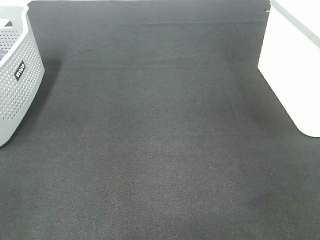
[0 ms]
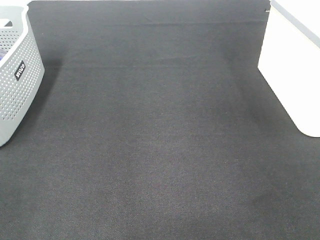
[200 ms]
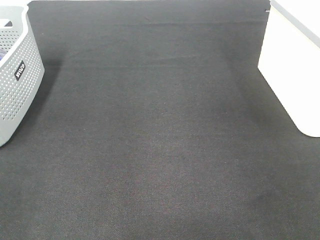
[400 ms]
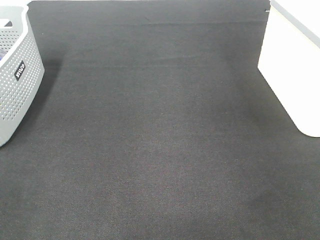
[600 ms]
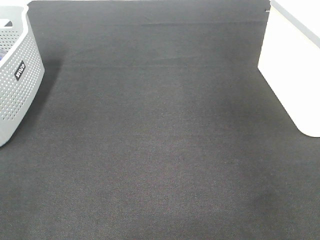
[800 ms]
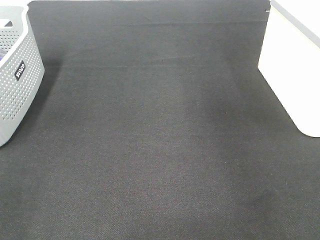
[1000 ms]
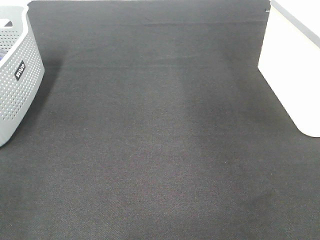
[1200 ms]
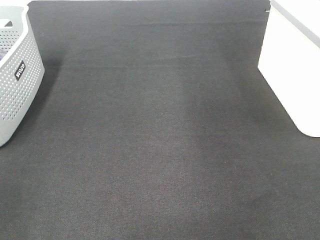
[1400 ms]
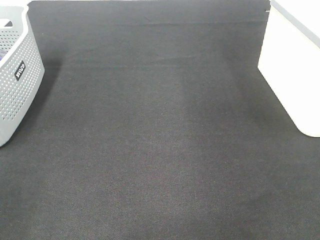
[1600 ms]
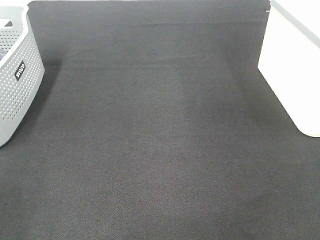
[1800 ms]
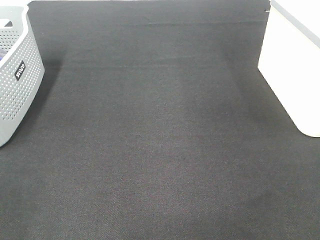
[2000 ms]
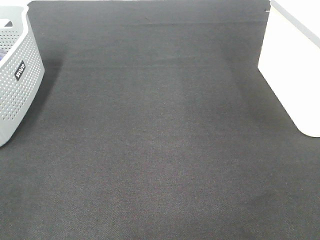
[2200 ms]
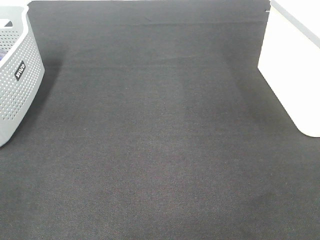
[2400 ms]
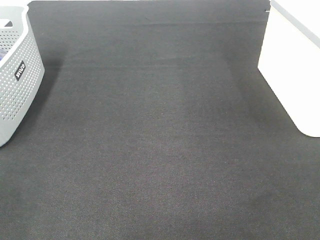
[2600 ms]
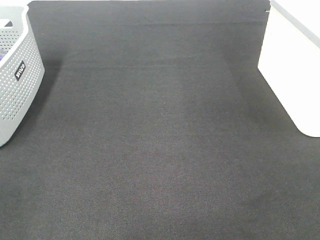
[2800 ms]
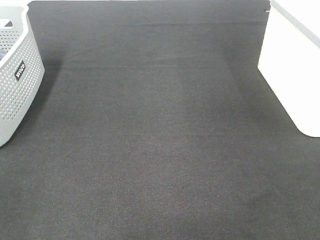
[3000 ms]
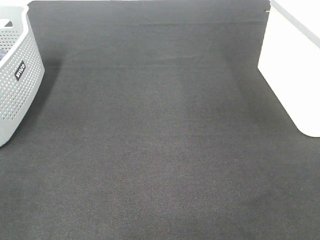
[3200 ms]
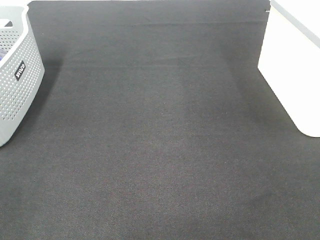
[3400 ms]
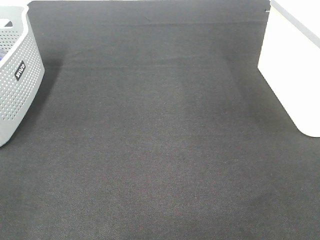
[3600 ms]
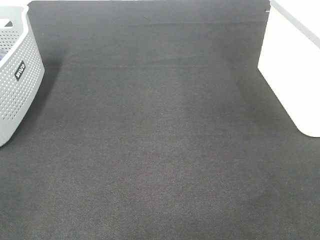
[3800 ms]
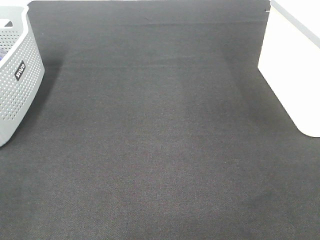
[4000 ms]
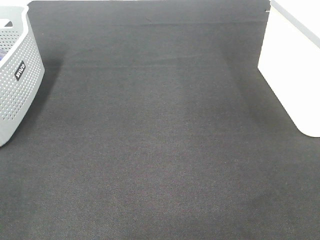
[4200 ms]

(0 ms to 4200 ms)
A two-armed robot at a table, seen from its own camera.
2800 ms - 4200 ms: Both grippers stay put.

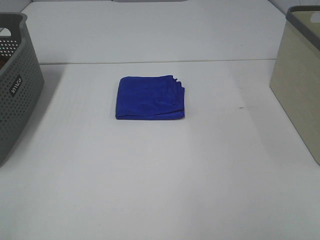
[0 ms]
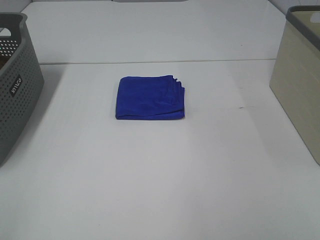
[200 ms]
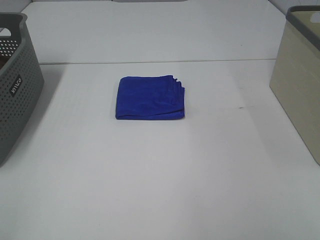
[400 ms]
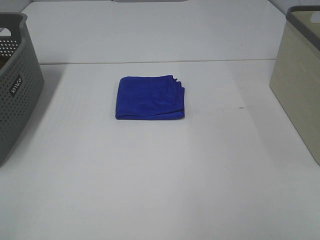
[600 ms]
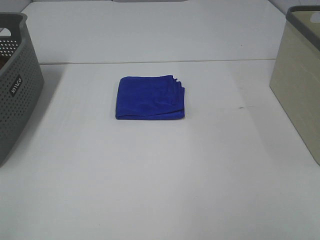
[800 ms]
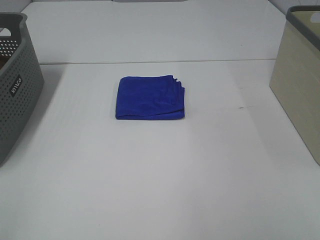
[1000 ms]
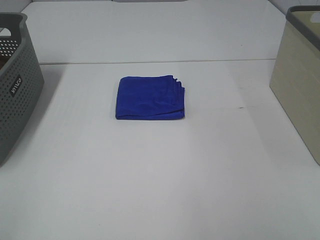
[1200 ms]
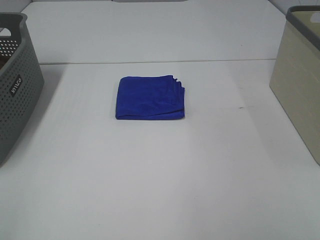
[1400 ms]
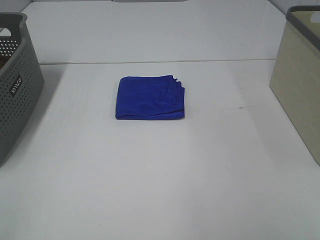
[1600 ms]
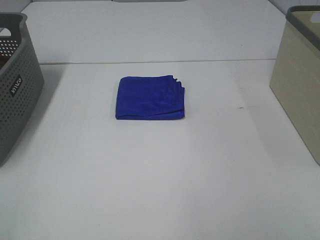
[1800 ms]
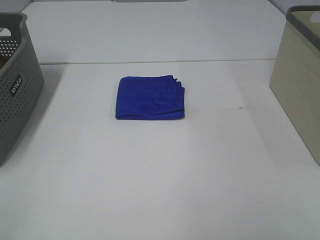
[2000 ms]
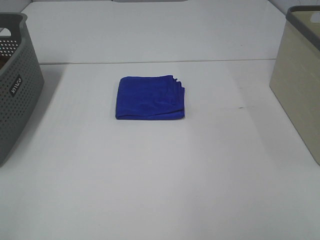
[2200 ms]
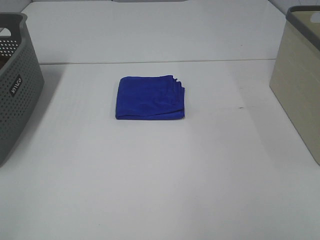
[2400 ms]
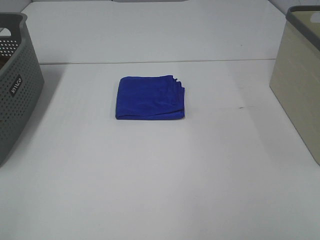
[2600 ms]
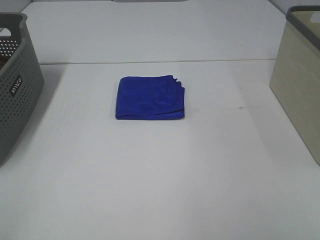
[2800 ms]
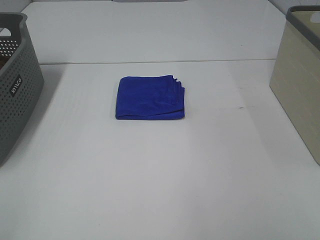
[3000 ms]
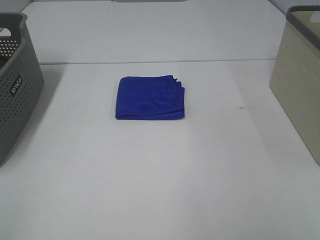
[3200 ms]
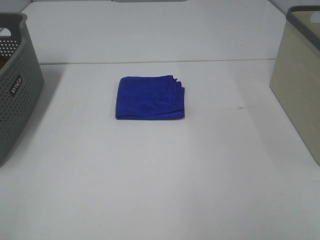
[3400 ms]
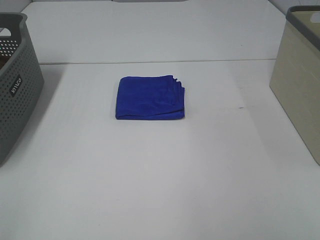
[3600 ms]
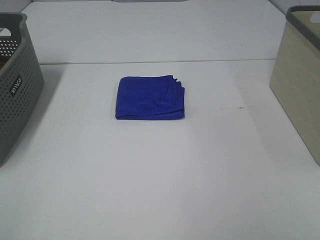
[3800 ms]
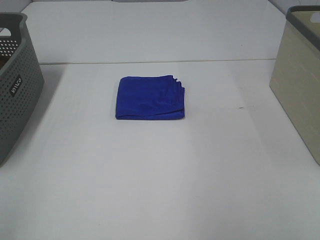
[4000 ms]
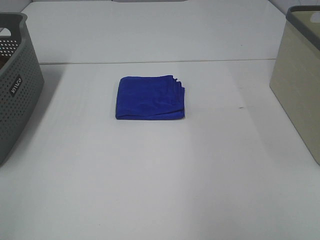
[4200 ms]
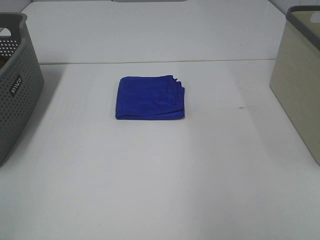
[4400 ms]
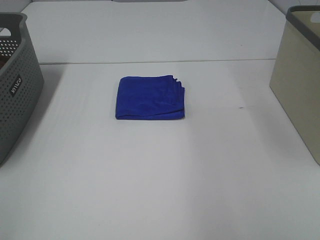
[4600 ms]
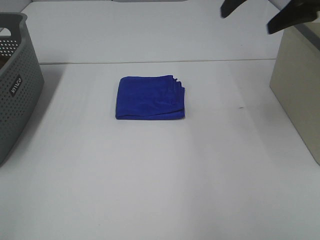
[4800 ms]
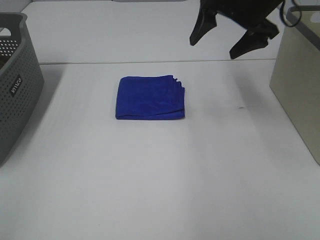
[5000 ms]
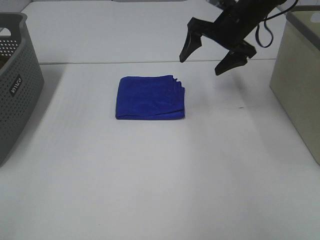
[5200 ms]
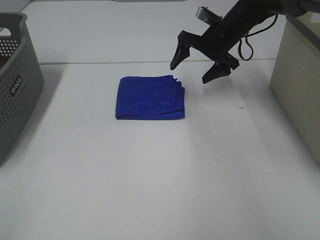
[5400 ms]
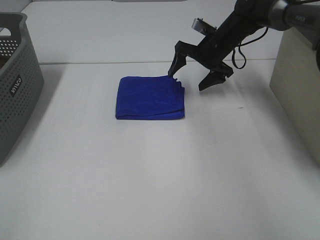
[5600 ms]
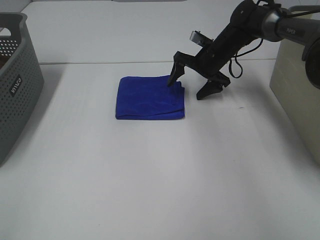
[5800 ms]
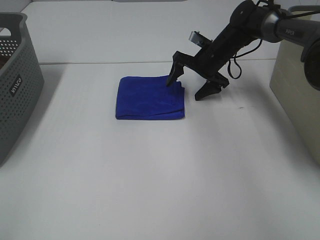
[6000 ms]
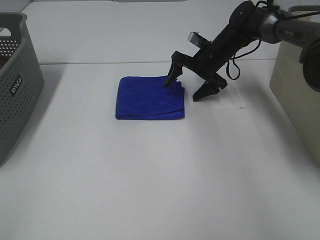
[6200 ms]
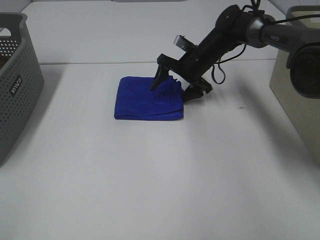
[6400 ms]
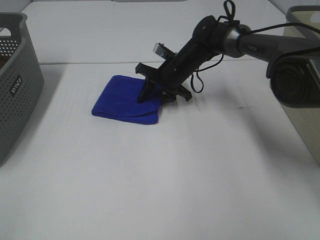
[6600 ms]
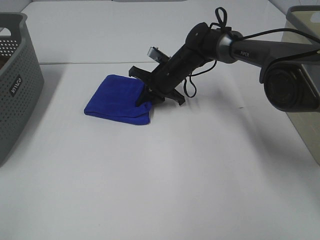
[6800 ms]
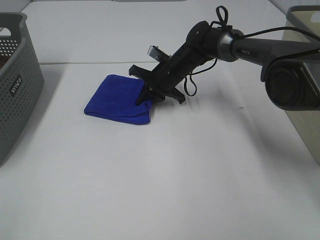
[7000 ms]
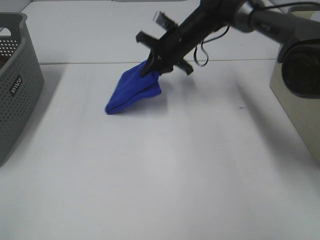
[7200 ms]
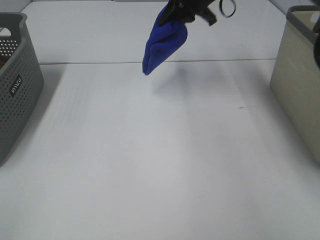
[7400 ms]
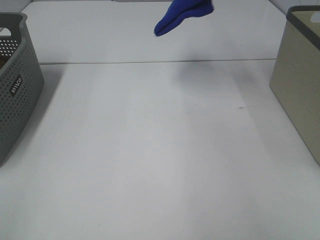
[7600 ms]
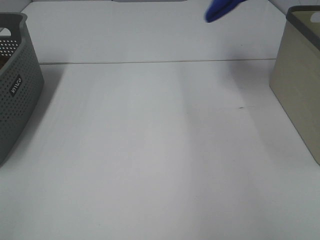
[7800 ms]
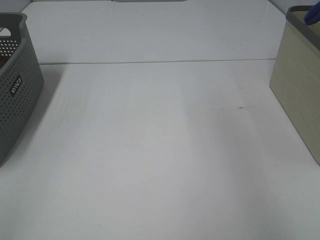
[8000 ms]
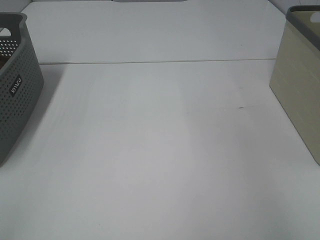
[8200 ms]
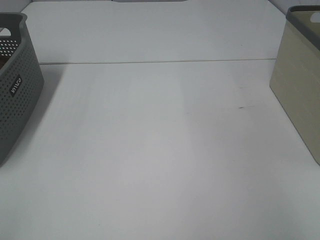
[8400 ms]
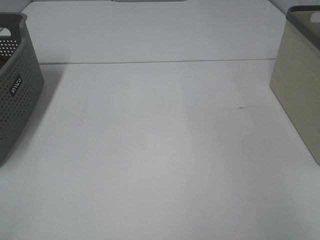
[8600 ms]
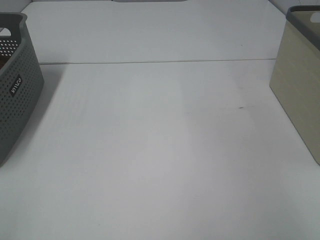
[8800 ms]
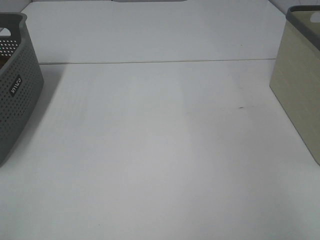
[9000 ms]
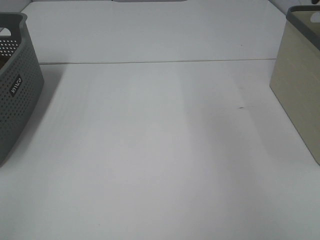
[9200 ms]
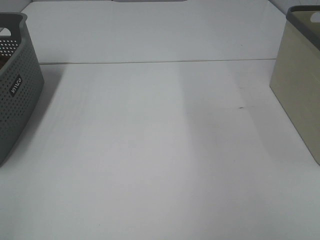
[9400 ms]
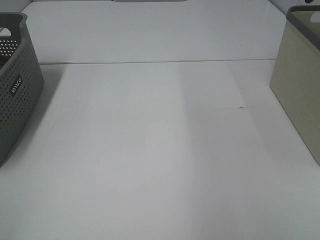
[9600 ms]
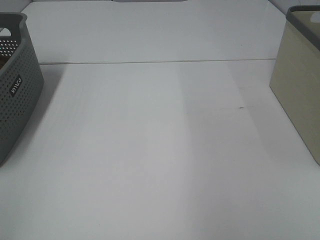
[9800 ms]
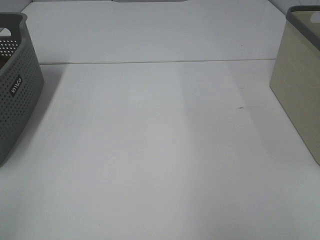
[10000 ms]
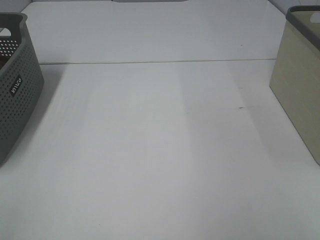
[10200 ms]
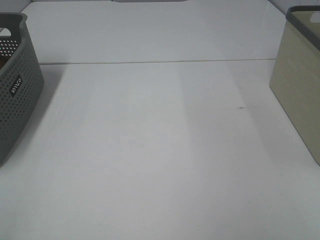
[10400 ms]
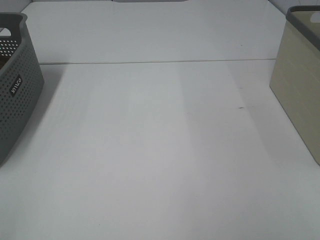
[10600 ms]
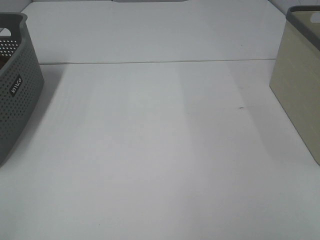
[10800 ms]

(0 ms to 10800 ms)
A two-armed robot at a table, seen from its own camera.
Step, 0 ms - 6800 ms: Right hand: grab the folded blue towel.
Step, 7000 ms - 9000 ms: Right hand: place the blue towel in right basket.
0 ms - 3000 ms: The two grippers keep their place.
4600 ms - 6200 ms: The right gripper heads downward, forward and to the left, covering about 35 cm.
6200 ms - 7800 ms: The right gripper goes some 30 cm upward, and closes its fingers.
7800 ms - 9200 ms: The right gripper shifts approximately 10 cm to the right, and opens.

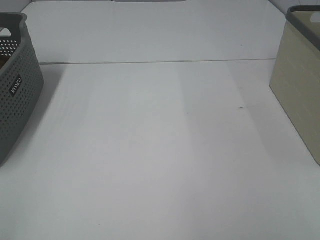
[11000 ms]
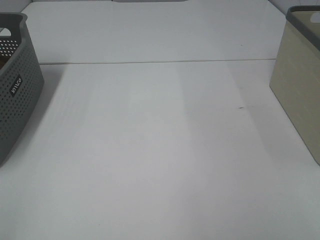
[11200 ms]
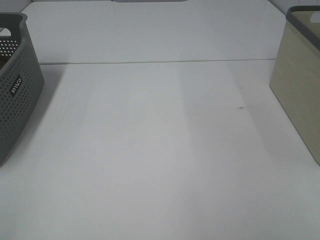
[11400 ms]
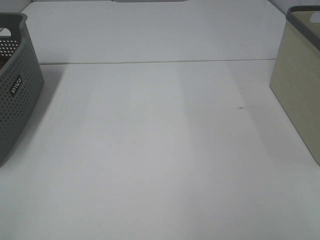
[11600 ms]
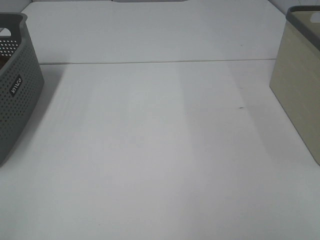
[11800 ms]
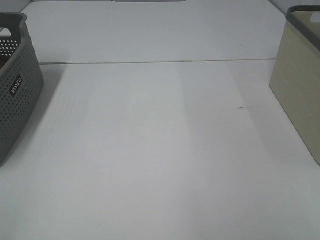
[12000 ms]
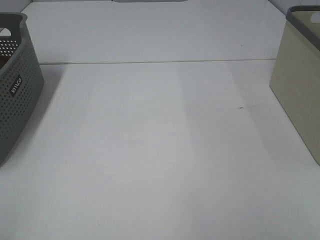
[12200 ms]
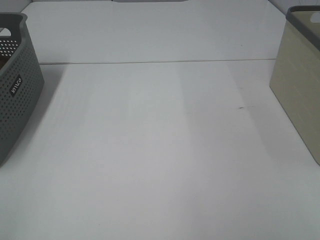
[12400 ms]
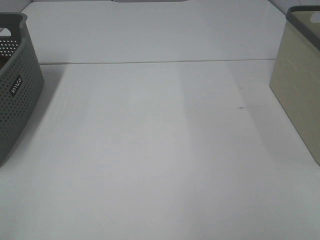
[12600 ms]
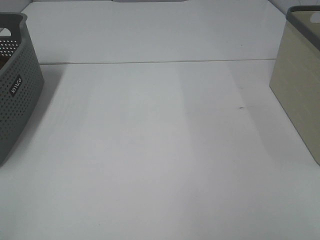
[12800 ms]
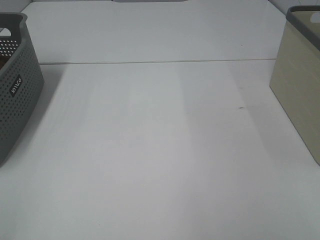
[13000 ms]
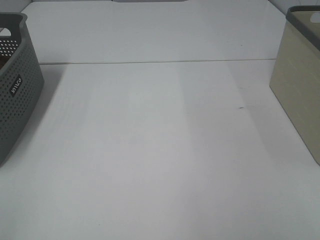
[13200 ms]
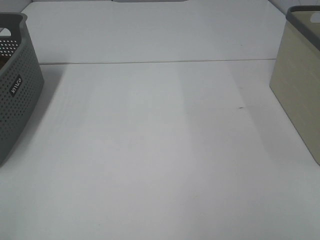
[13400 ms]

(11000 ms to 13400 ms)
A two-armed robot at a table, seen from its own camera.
11000 ms - 13400 ms: The two grippers keep their place.

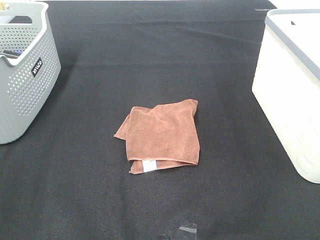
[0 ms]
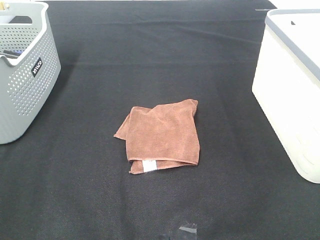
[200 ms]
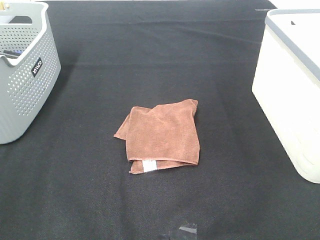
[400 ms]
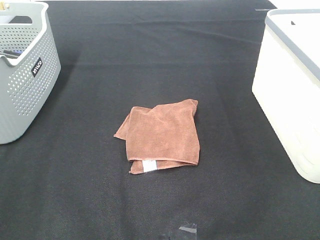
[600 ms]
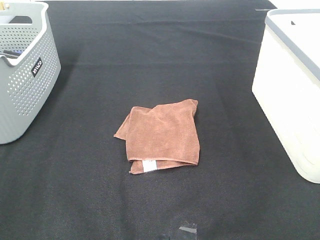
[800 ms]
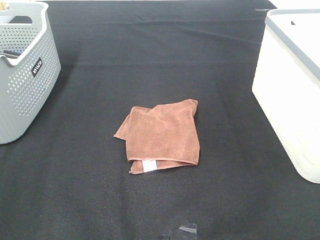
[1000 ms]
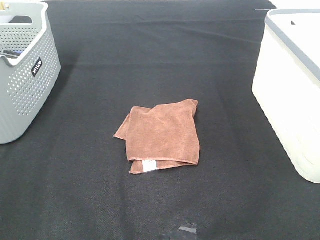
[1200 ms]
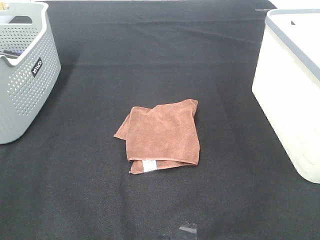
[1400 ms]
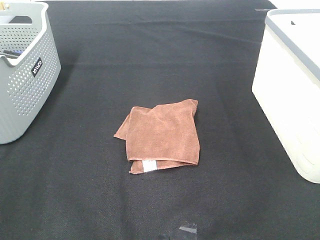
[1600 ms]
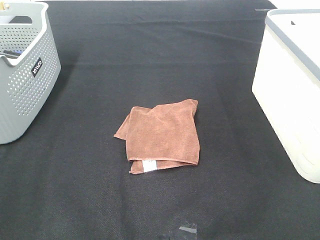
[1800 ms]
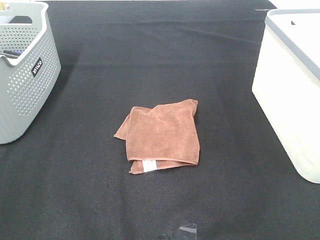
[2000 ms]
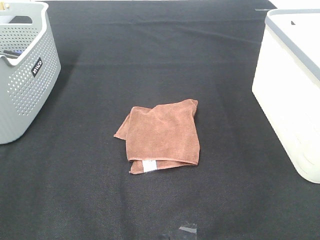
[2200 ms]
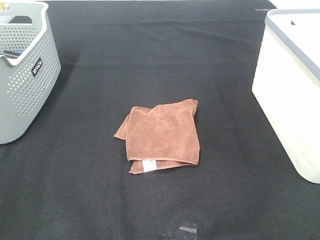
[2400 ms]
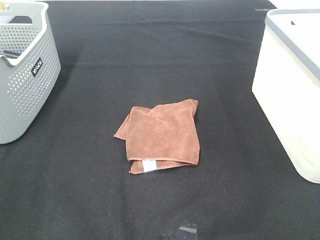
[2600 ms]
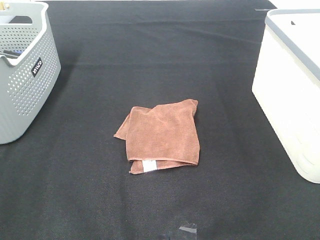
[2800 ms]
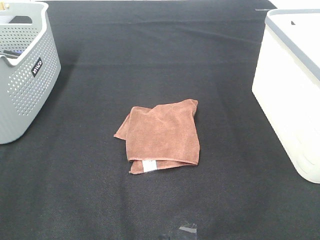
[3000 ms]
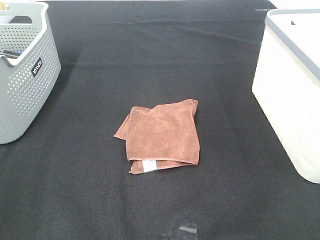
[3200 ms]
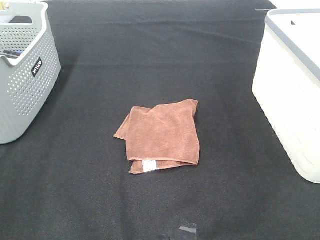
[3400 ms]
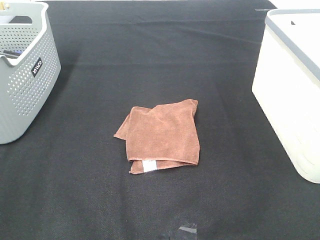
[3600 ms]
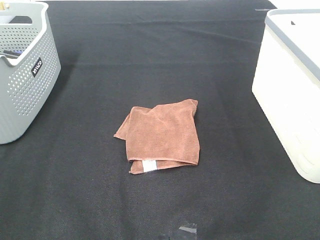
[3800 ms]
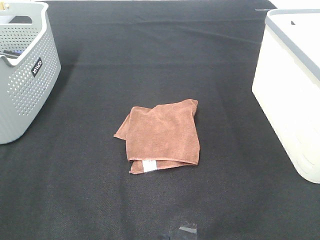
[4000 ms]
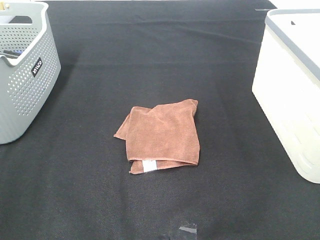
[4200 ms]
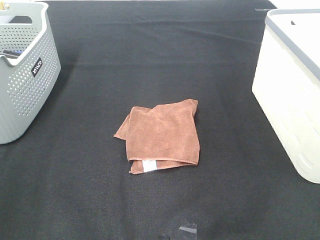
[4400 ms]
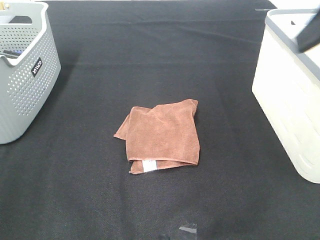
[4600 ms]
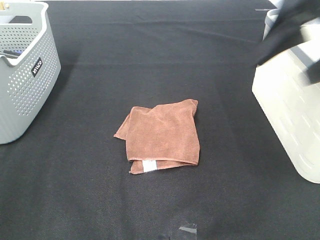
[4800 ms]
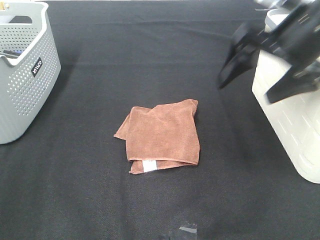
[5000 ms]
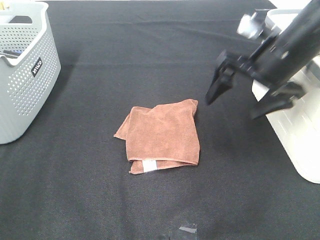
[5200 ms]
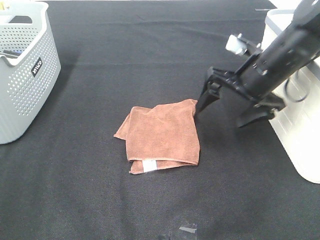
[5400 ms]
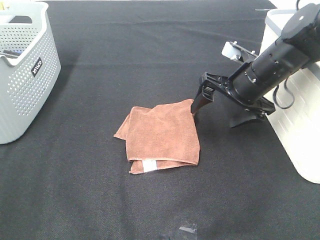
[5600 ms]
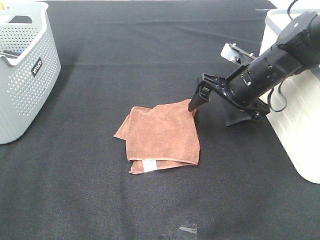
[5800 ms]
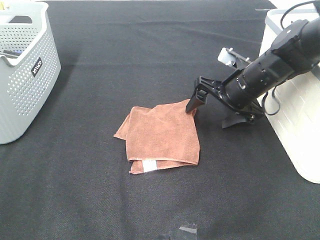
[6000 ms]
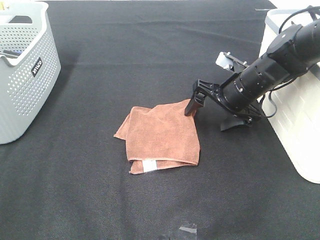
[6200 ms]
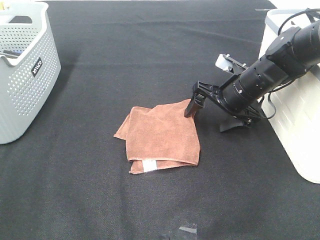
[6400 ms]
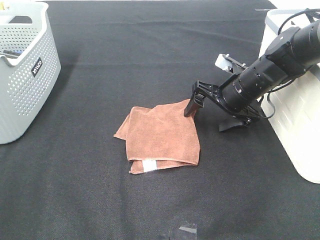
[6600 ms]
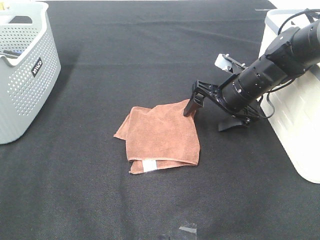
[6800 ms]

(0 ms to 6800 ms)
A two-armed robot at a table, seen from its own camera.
0 ms - 2800 ms: Neither gripper changes place.
4000 ms - 5400 ms: The right gripper travels forward and downward by some 35 cm.
5400 ms - 6800 ms: The right gripper heads downward, covering approximately 5 cm.
